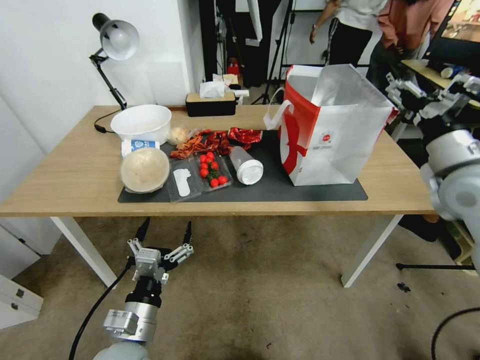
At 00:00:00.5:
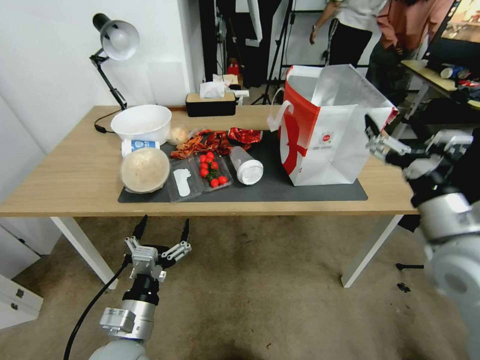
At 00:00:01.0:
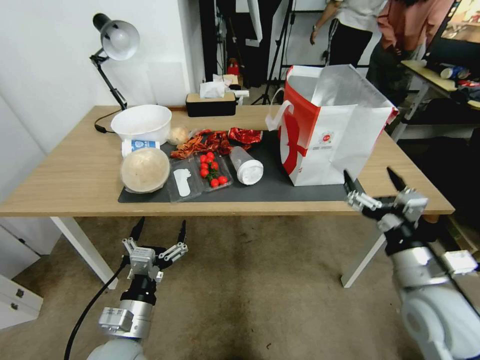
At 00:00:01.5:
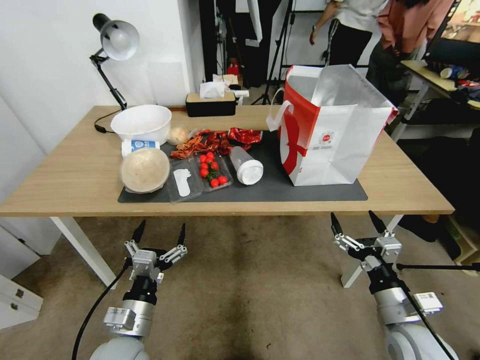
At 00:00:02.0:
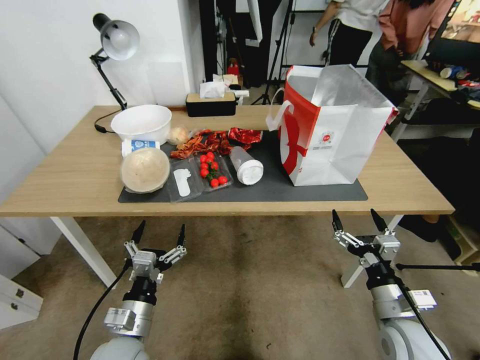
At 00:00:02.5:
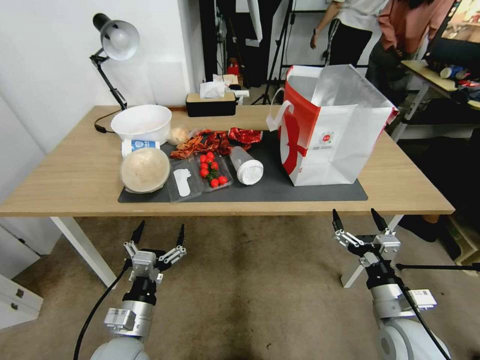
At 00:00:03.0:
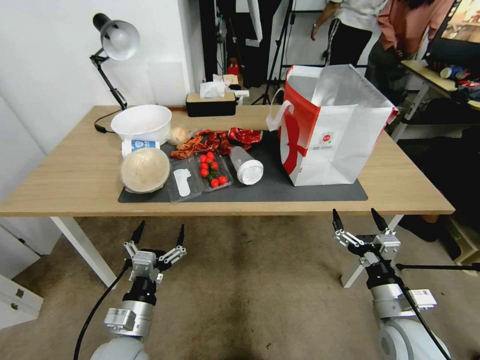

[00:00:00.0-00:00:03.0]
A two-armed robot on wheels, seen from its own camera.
Task of the whole recording: Pick up the food delivery bag from the floor and place it on the table.
00:00:00.0 to 00:00:01.5: The right gripper moves downward and backward, roughly 30 cm.
00:00:01.5 to 00:00:03.0: Both grippers stay about where they are.

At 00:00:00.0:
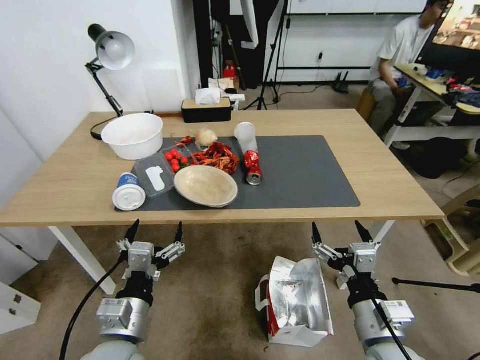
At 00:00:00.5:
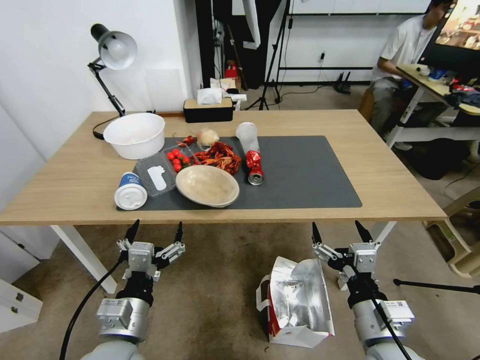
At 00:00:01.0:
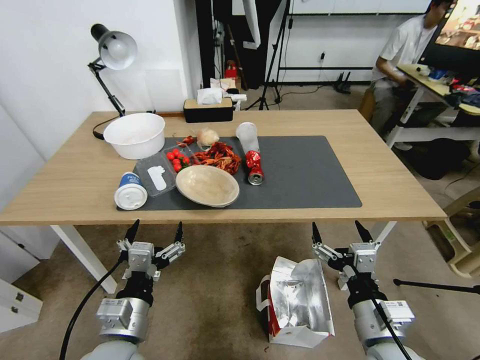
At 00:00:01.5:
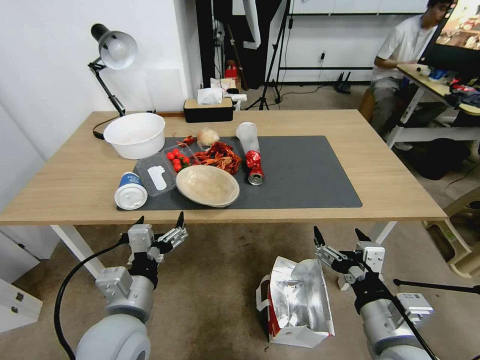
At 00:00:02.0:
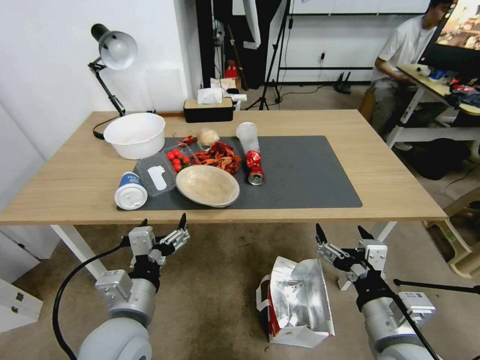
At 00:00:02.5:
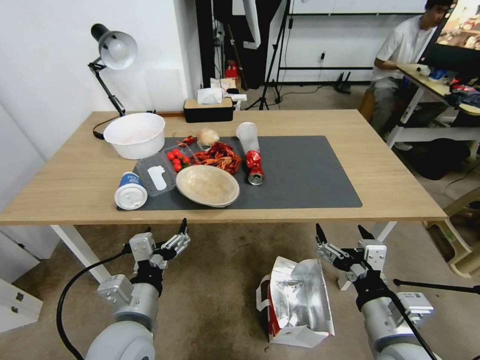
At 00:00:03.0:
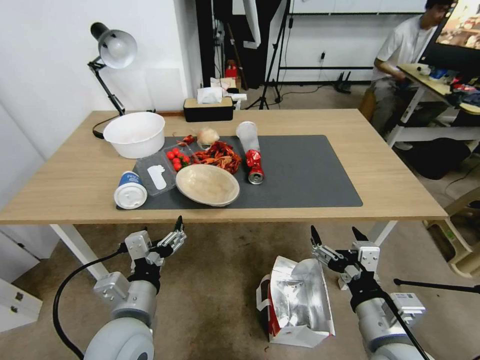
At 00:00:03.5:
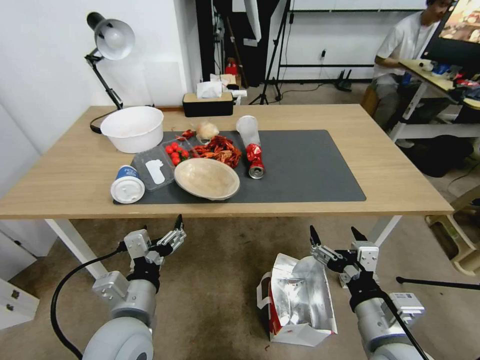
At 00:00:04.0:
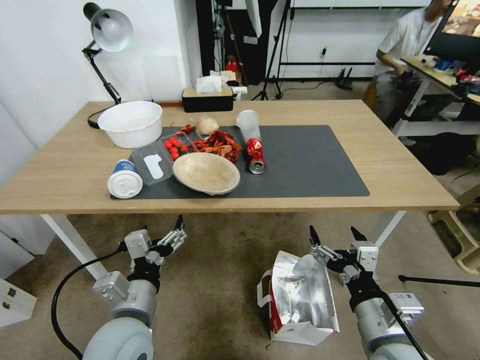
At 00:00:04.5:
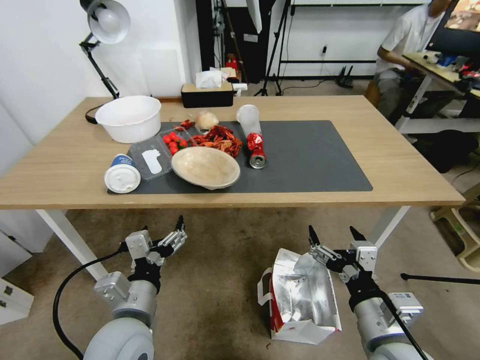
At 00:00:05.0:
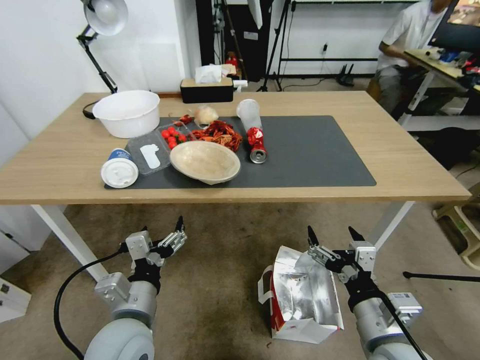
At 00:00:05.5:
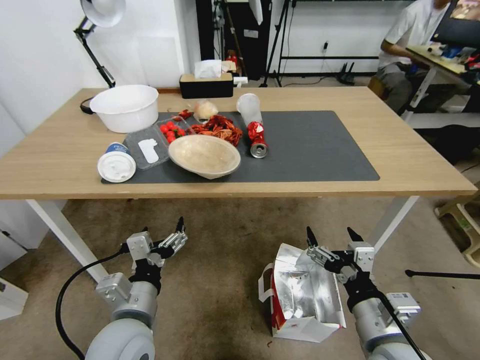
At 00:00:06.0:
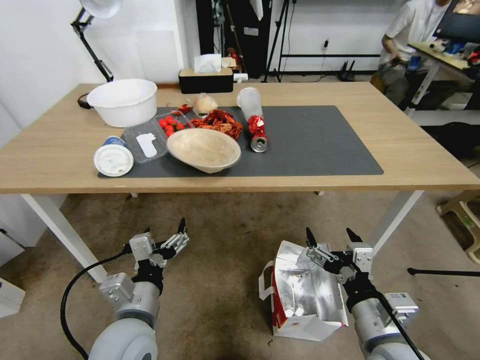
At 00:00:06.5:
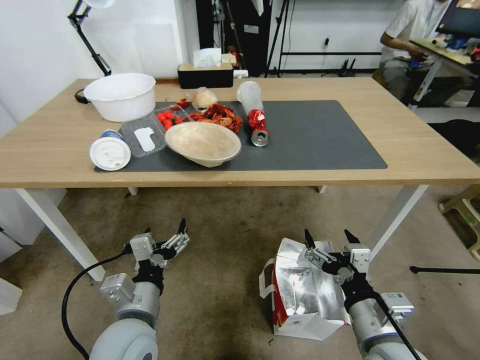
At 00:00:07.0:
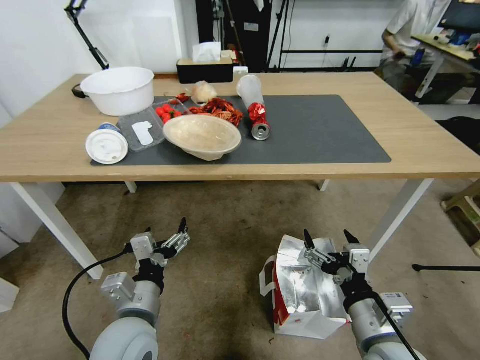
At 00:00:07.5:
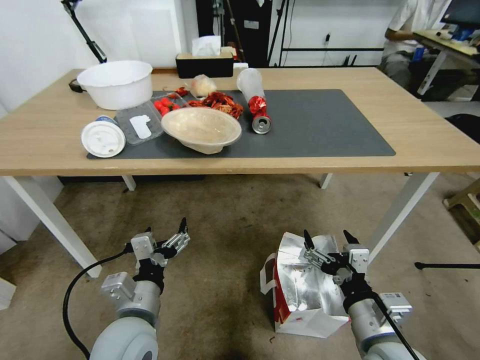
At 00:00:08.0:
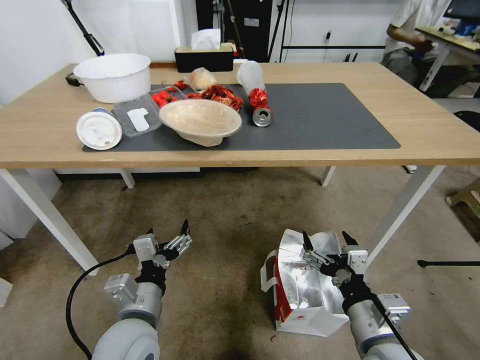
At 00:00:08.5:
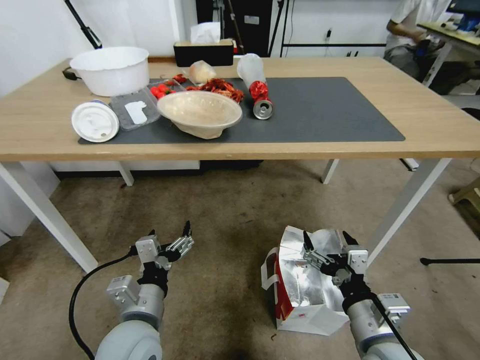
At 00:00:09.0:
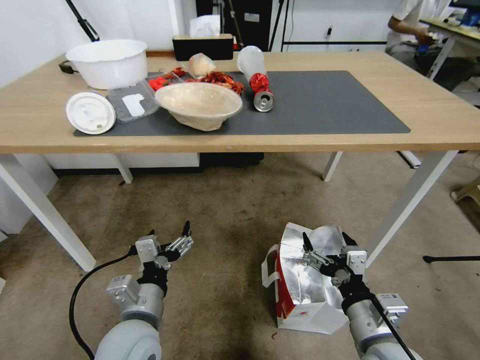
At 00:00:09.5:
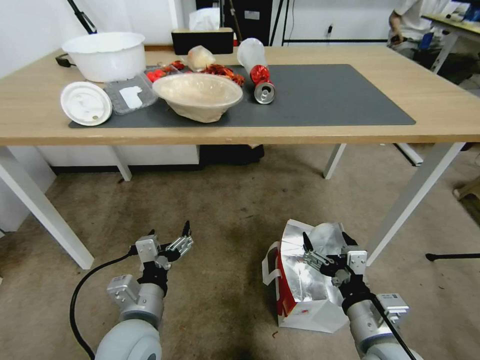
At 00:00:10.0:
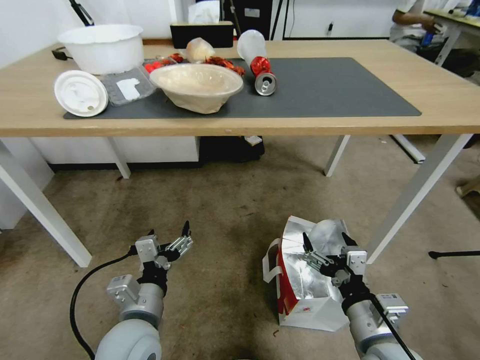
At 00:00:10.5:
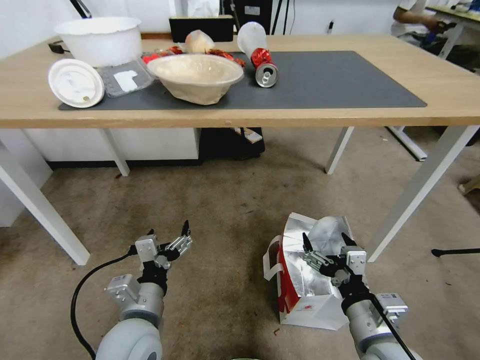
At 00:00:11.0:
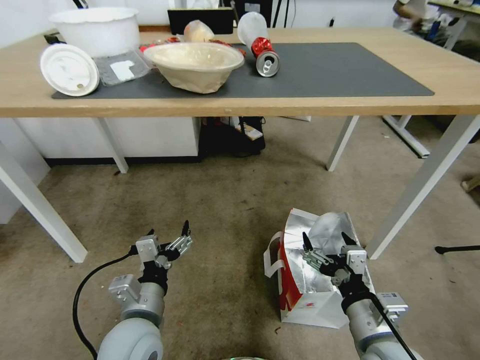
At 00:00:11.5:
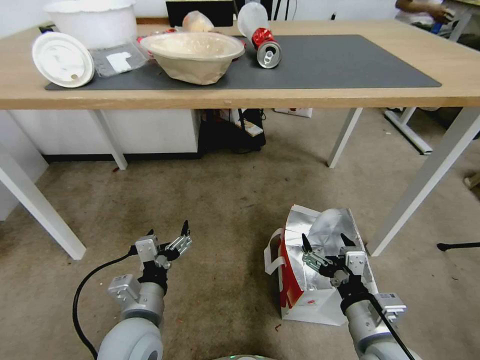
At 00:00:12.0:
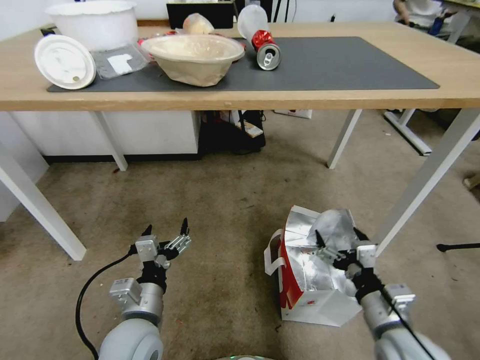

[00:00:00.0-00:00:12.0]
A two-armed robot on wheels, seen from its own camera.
Task of the whole recording: Pick up the food delivery bag from the floor and place it on the table.
00:00:10.0 to 00:00:12.0: The right gripper moves about 5 cm.

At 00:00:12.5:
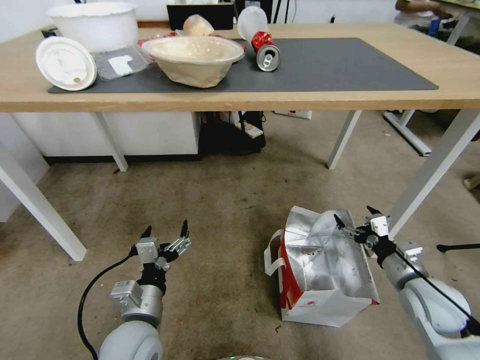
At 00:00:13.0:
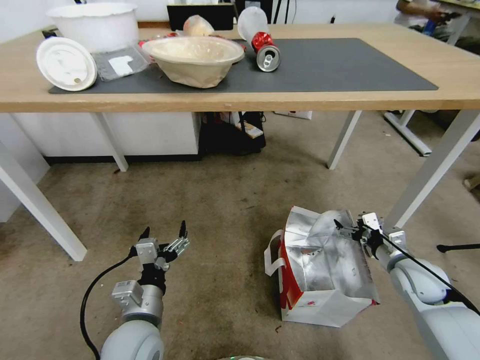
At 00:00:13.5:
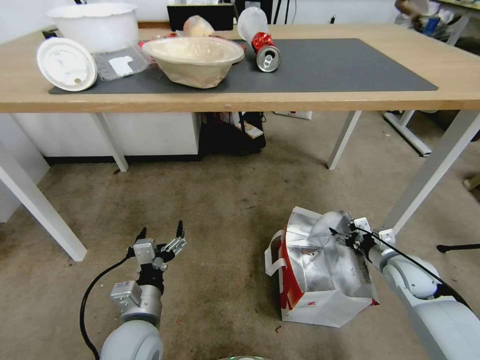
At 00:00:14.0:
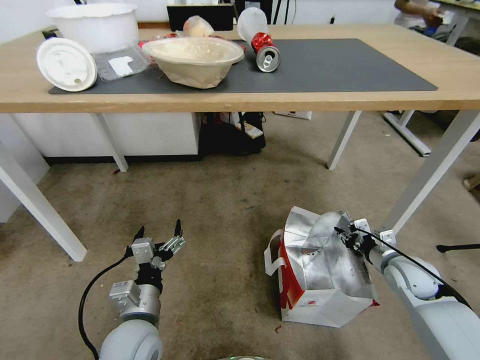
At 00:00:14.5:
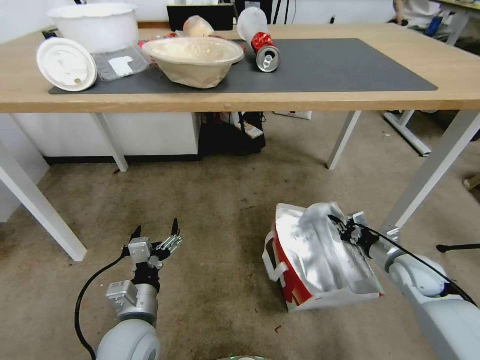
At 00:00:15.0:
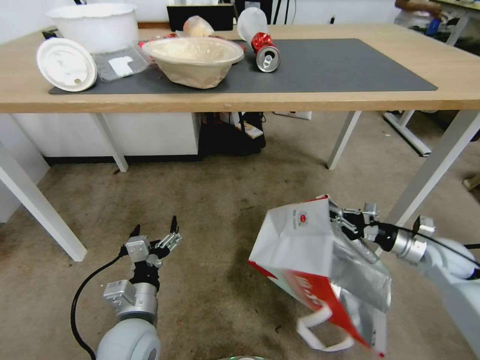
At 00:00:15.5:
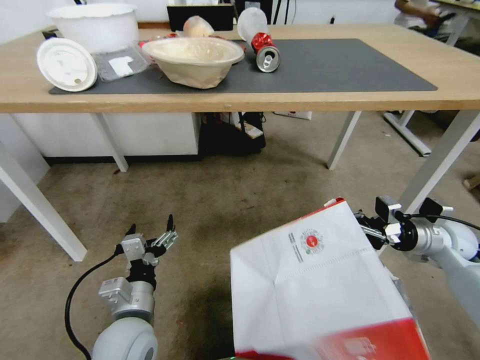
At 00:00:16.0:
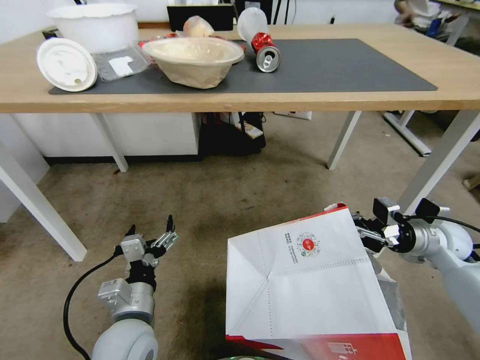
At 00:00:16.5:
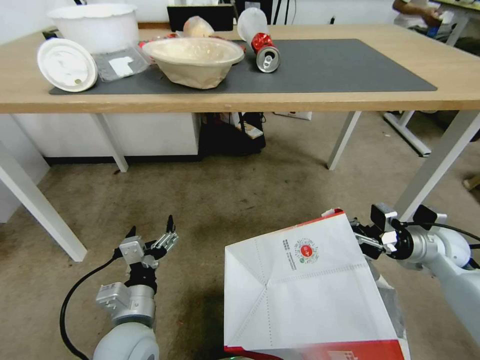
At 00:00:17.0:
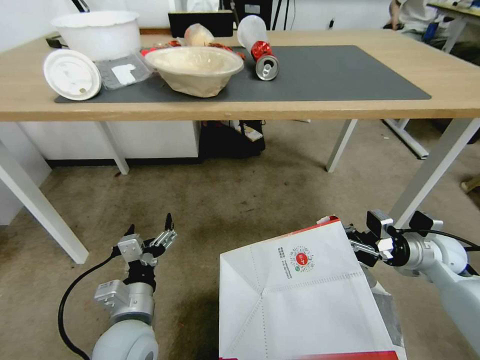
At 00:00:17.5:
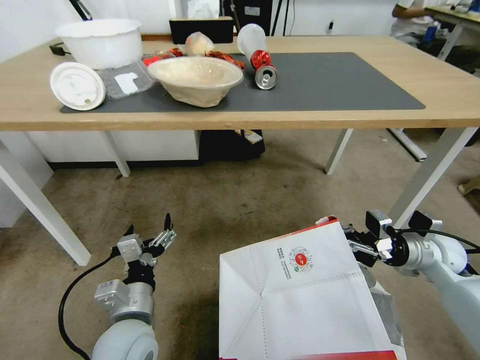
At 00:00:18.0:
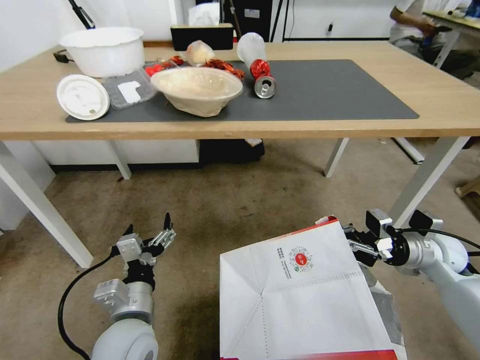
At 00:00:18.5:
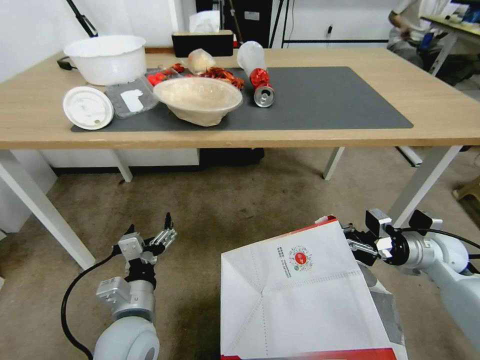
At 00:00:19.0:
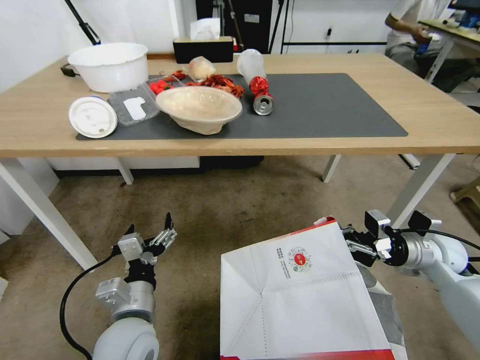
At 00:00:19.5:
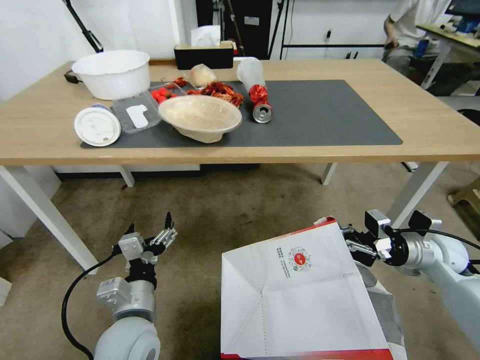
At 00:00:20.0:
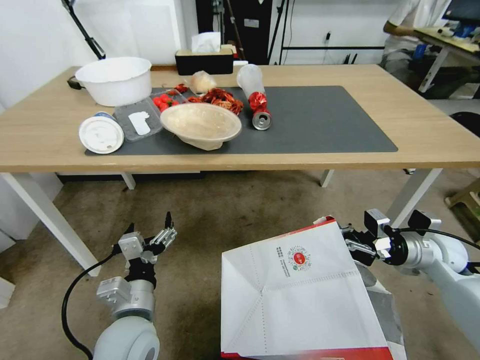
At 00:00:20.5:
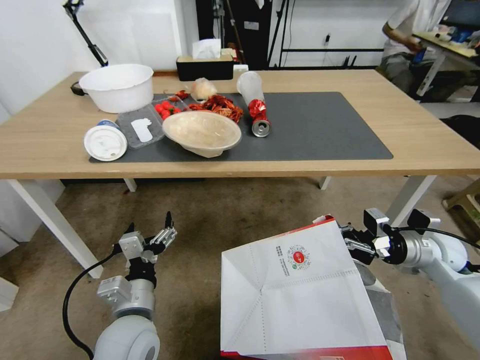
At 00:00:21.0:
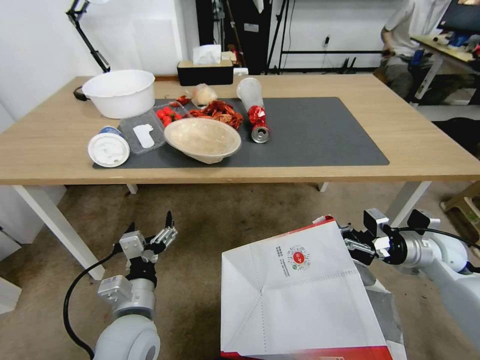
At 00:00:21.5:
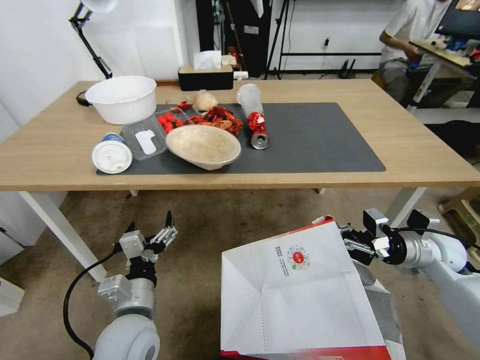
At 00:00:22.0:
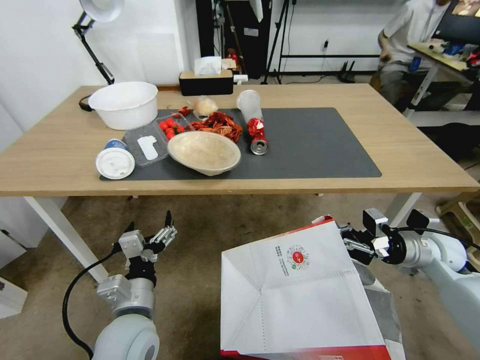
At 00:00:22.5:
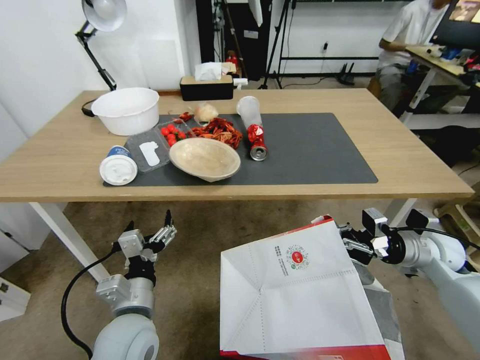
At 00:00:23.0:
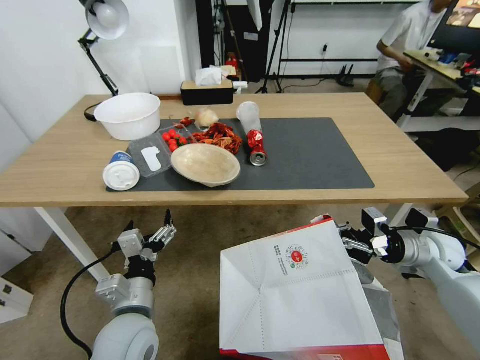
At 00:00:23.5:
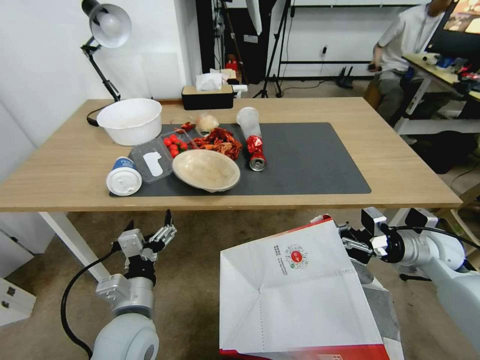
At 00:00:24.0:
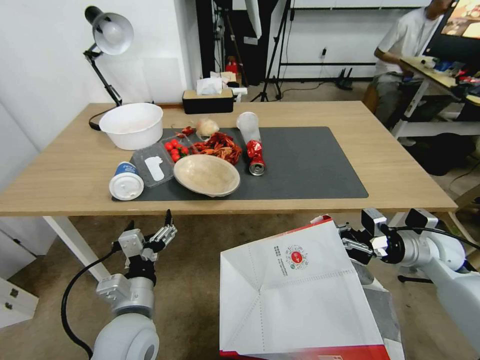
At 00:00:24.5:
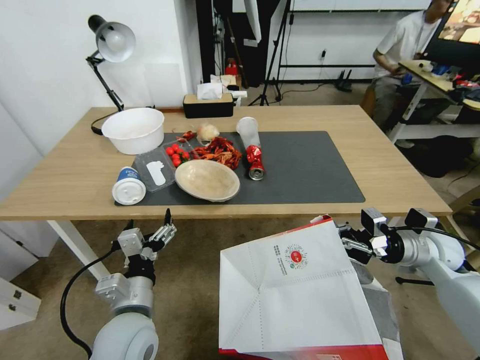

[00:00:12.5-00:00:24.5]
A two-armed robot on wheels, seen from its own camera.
Task of the whole recording: Pick up the food delivery bag from the floor and place it on the table.
00:00:12.5 to 00:00:14.5: The right gripper shifts some 5 cm forward, and closes.
00:00:14.5 to 00:00:16.5: The right gripper is displaced upward by some 10 cm.
